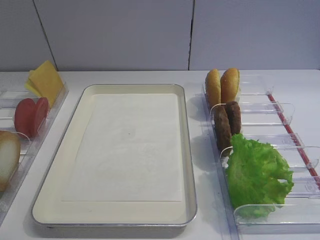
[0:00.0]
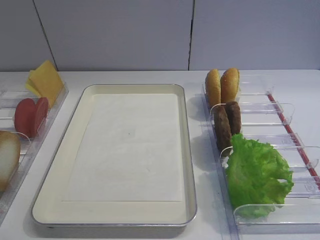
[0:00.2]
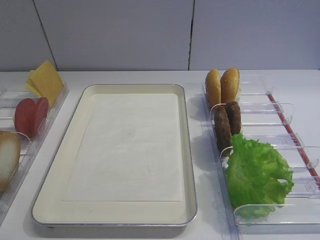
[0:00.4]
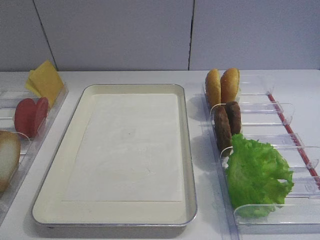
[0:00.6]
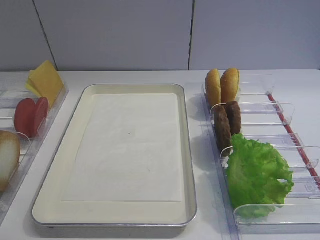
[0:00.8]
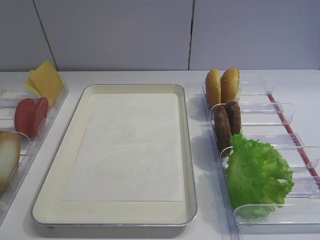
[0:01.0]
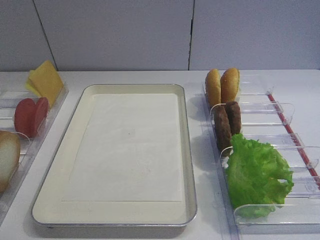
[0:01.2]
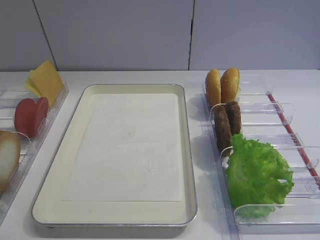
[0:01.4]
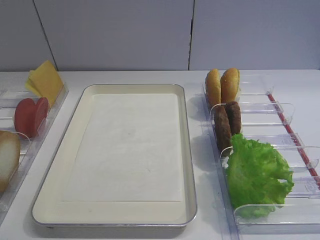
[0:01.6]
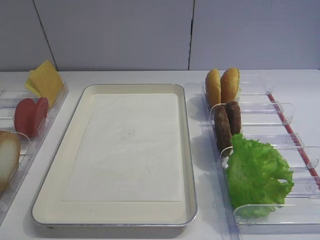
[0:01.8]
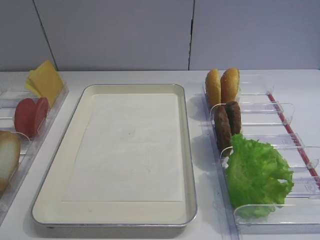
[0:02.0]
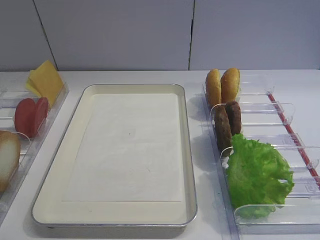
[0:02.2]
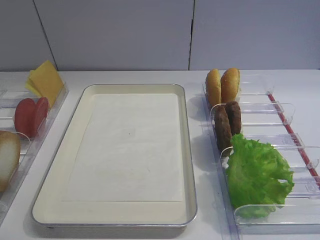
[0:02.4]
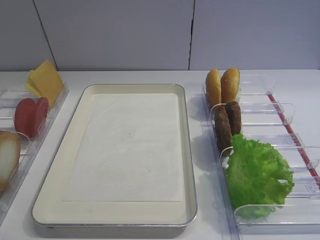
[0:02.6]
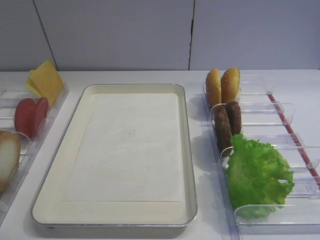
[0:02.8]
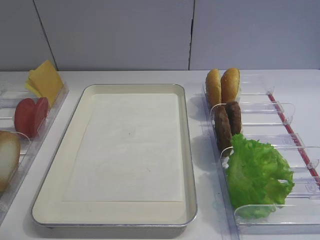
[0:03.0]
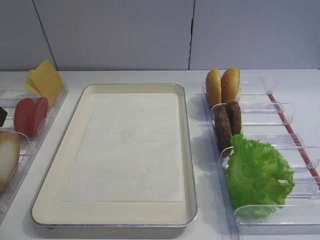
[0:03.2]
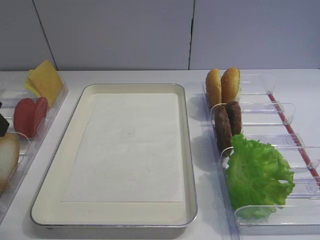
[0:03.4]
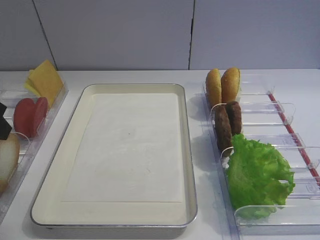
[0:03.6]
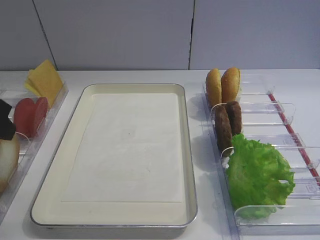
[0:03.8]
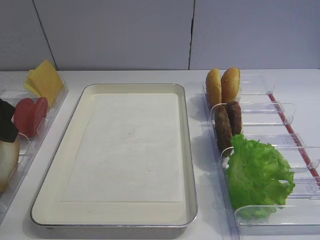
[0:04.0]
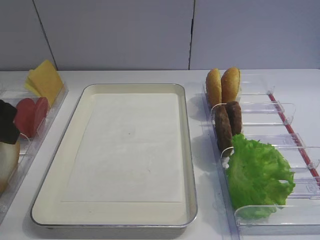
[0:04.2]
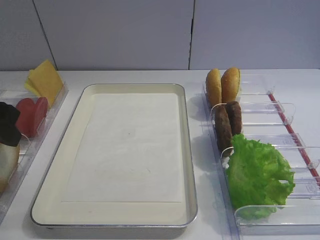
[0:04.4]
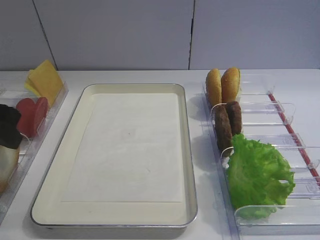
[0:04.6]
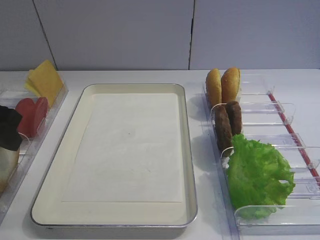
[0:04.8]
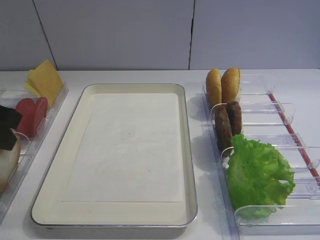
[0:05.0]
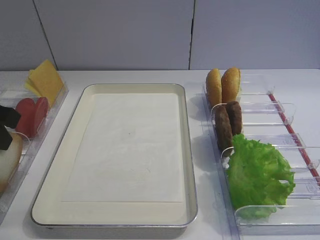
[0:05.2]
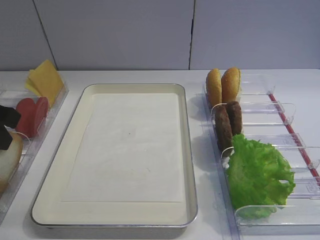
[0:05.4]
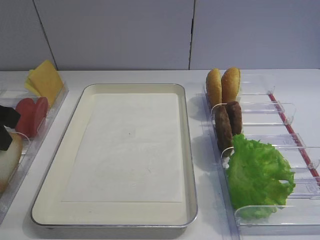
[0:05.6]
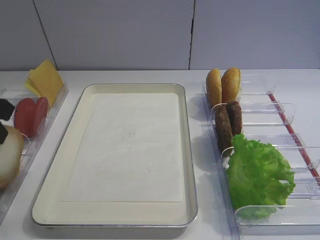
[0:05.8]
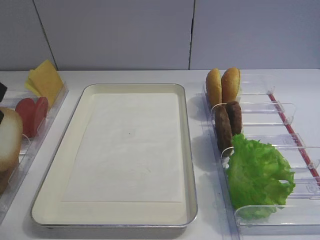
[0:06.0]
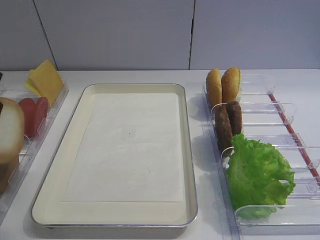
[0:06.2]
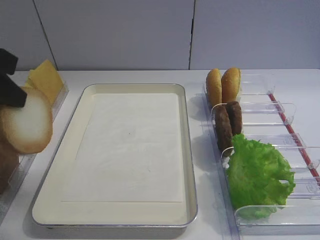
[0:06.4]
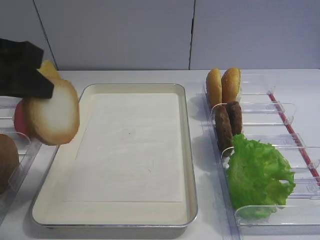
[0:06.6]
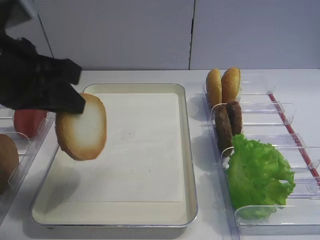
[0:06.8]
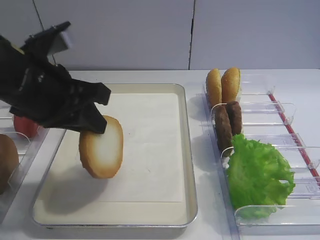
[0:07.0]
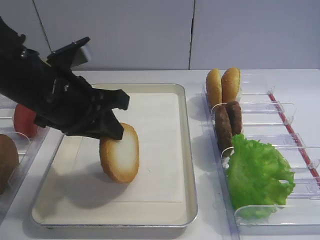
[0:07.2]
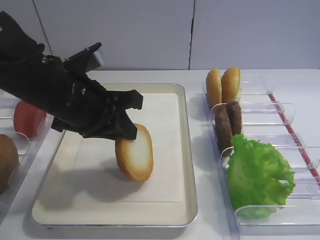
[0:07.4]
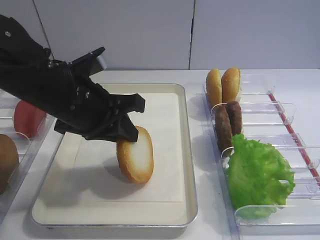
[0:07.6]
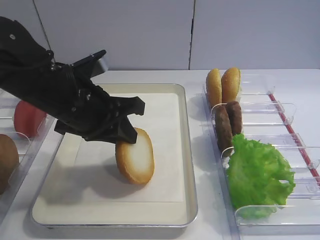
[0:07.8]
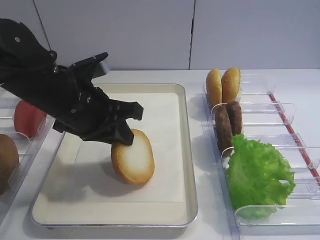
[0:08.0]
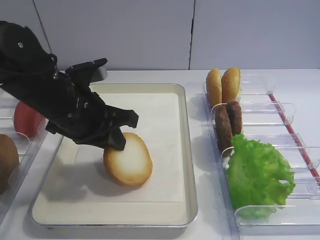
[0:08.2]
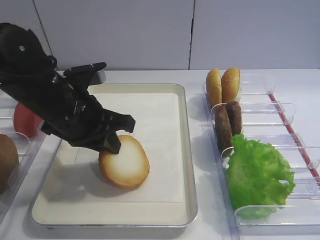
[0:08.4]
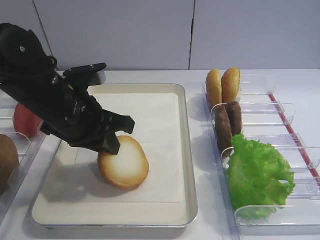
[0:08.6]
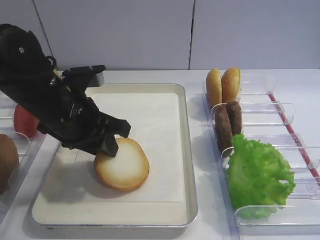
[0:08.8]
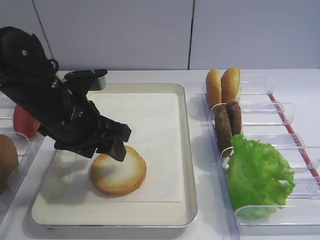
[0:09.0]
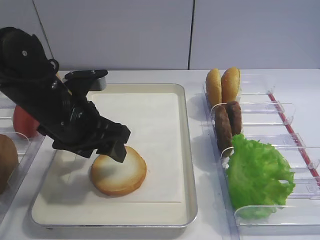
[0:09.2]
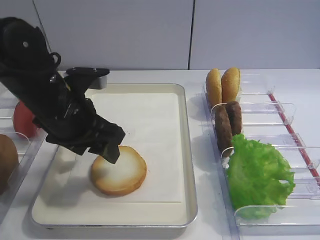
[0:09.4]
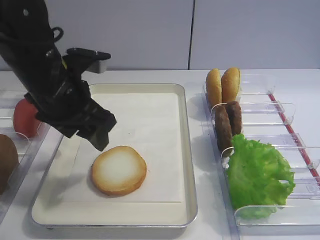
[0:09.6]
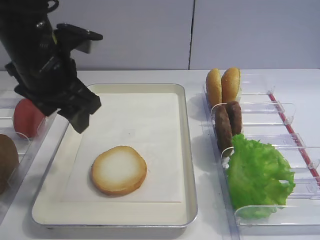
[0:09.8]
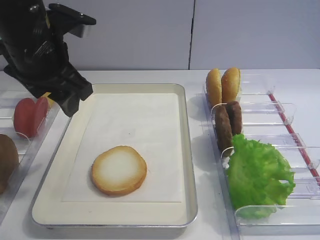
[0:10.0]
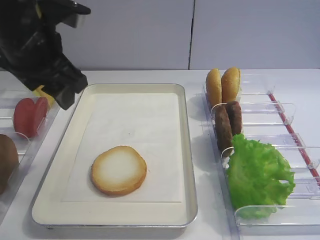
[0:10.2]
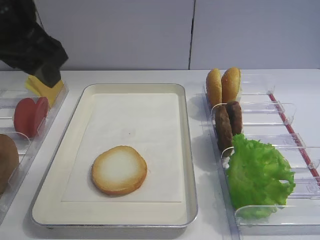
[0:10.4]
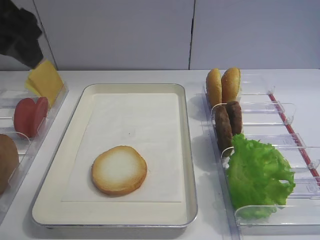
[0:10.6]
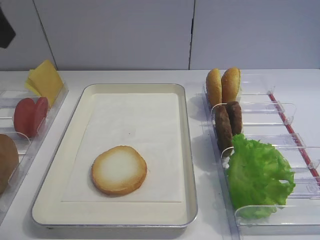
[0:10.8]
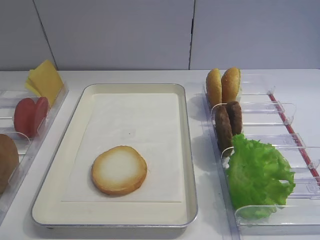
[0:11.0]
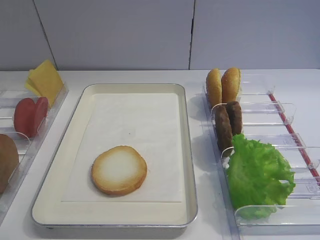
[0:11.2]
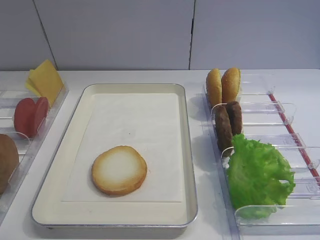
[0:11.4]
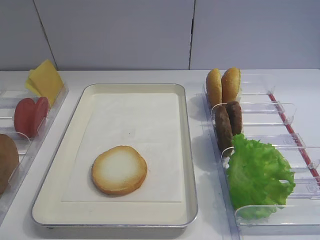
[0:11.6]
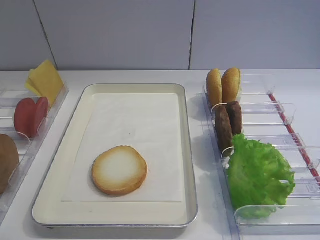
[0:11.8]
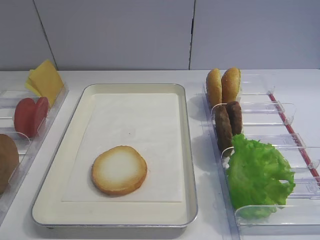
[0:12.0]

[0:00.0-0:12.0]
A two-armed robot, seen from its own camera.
Step, 0:00.0 to 0:06.0: Pick up the bread slice with the left gripper.
Step, 0:06.2 to 0:09.6: Place the bread slice on the tray with the left gripper.
0:03.0 to 0:04.4: The left gripper is displaced forward and downward by approximately 10 cm.
0:04.4 to 0:06.0: The left gripper closes up.
0:06.0 to 0:07.6: The left gripper moves to the right and downward, roughly 15 cm.
0:07.6 to 0:09.0: The left gripper opens its fingers.
0:09.0 to 0:10.4: The left gripper shifts about 15 cm upward.
0:10.4 to 0:12.0: The left gripper shifts approximately 30 cm backward and to the left.

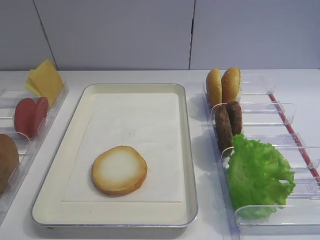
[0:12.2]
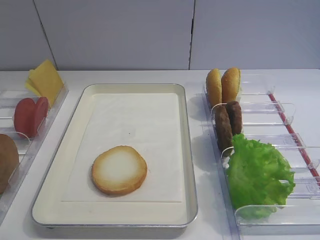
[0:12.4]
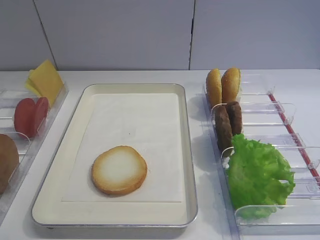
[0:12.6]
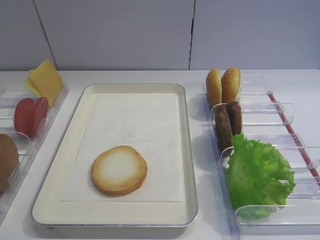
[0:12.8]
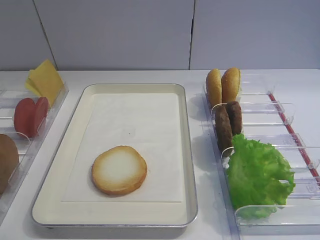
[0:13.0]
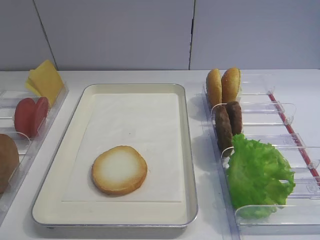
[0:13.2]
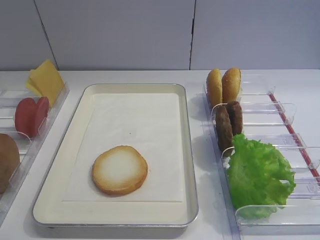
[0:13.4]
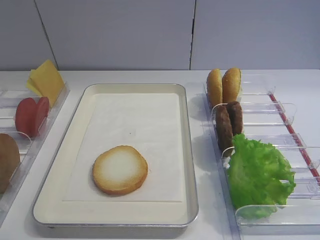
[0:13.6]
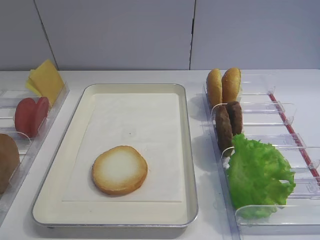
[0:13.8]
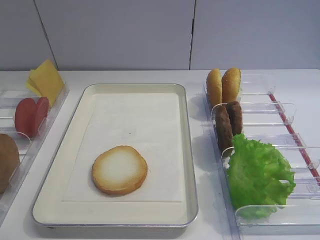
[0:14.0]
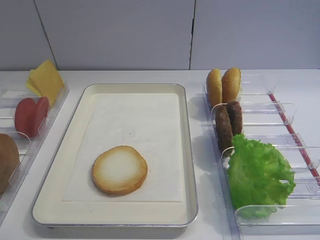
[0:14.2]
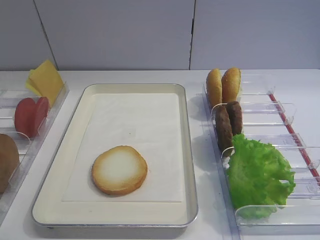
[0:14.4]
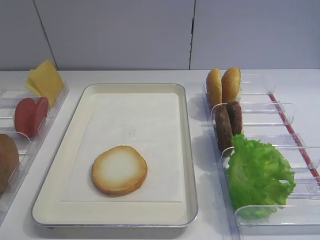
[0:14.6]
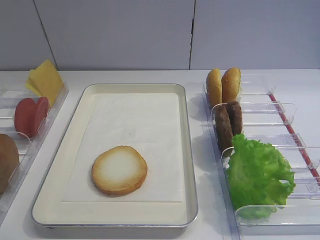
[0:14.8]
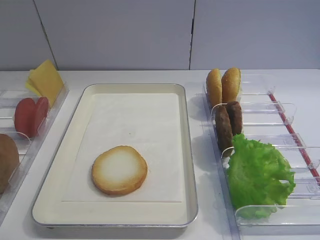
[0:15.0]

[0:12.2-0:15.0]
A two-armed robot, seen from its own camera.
0:12.2 to 0:13.6: Both grippers stay put.

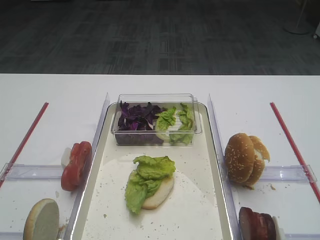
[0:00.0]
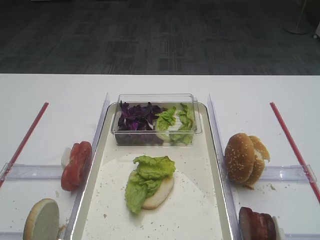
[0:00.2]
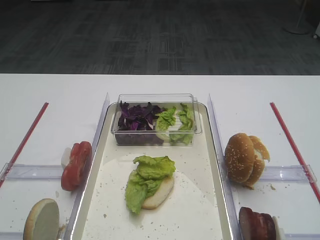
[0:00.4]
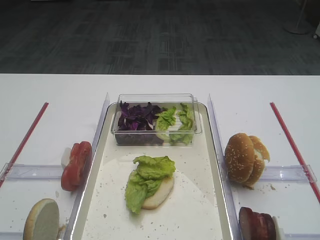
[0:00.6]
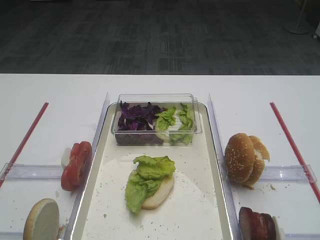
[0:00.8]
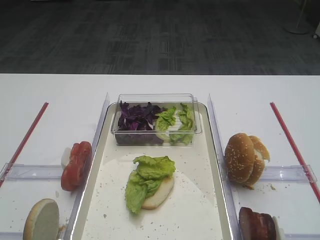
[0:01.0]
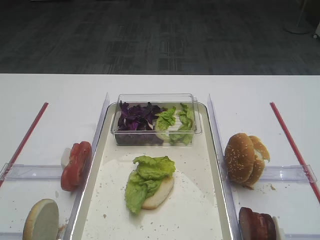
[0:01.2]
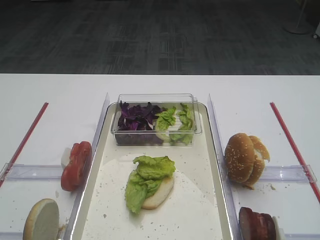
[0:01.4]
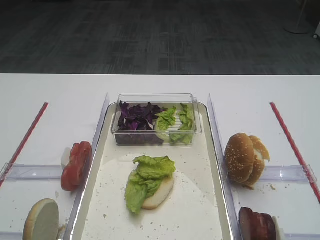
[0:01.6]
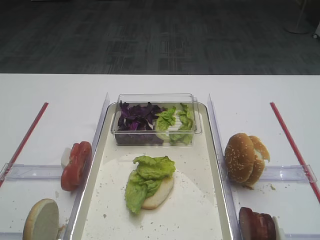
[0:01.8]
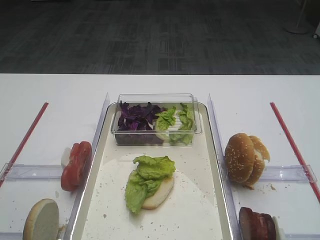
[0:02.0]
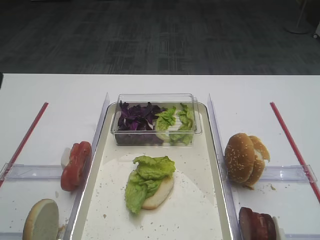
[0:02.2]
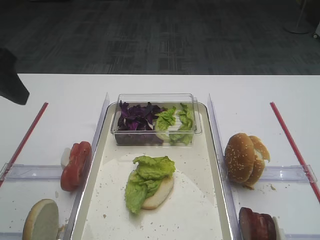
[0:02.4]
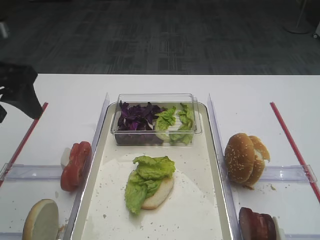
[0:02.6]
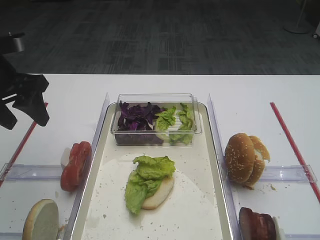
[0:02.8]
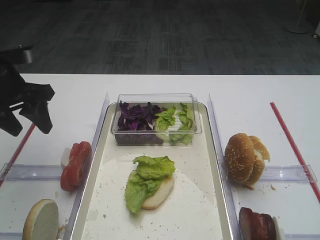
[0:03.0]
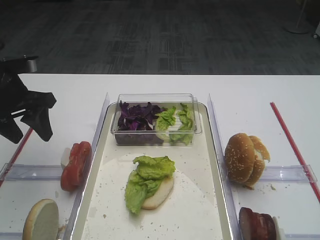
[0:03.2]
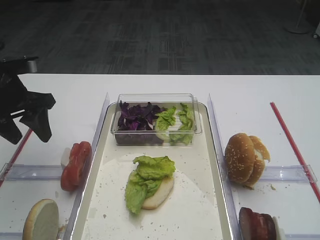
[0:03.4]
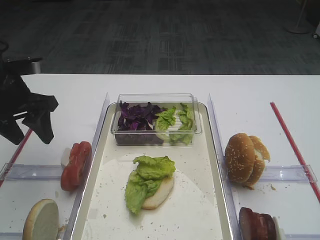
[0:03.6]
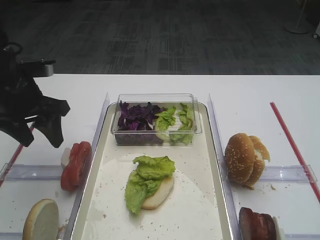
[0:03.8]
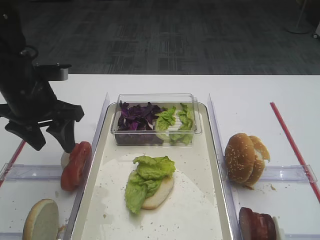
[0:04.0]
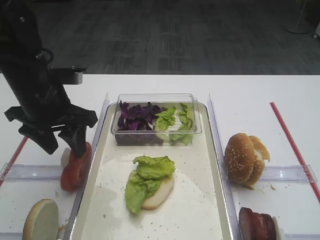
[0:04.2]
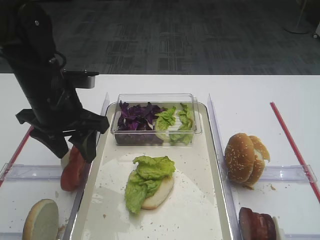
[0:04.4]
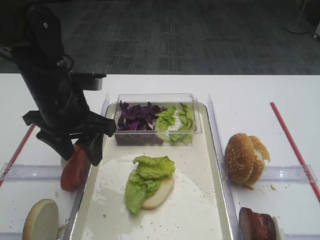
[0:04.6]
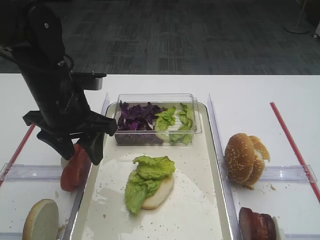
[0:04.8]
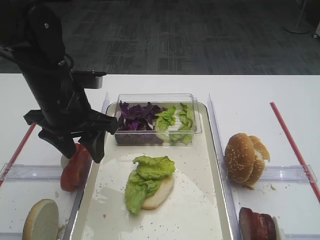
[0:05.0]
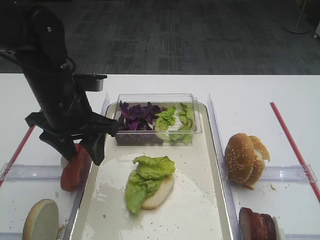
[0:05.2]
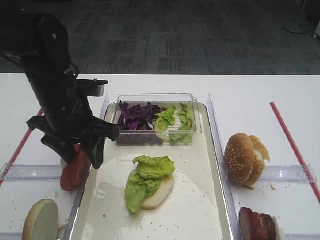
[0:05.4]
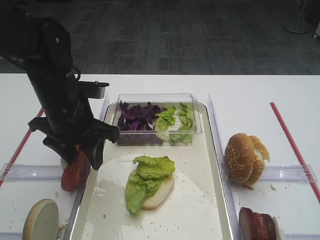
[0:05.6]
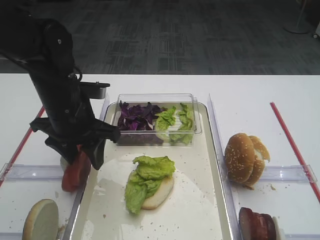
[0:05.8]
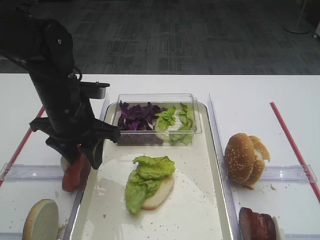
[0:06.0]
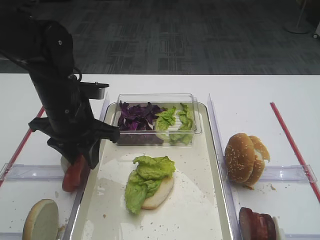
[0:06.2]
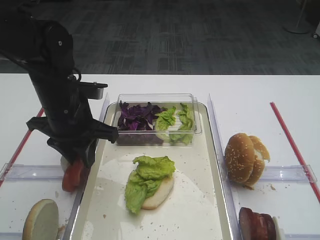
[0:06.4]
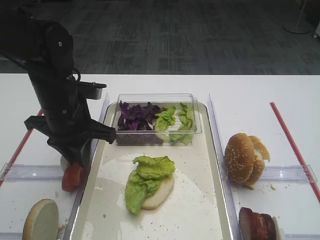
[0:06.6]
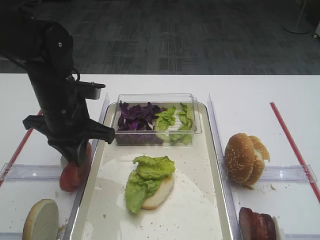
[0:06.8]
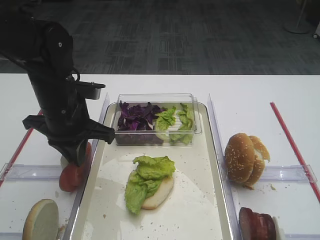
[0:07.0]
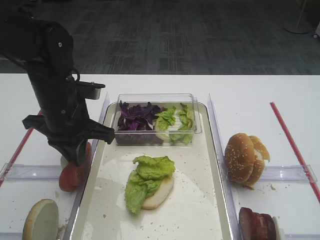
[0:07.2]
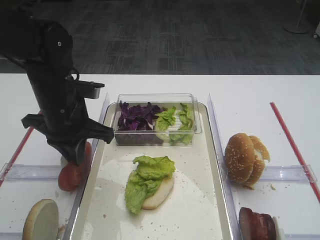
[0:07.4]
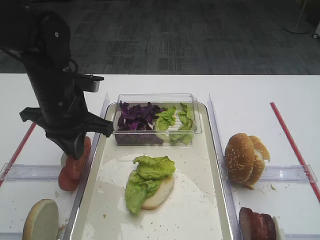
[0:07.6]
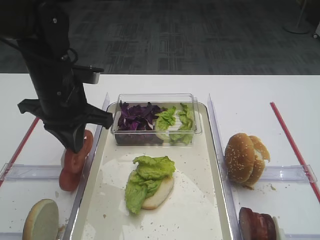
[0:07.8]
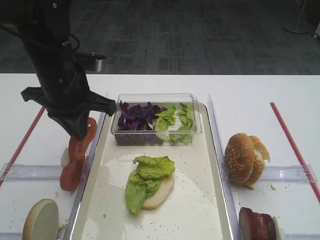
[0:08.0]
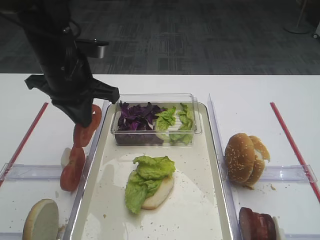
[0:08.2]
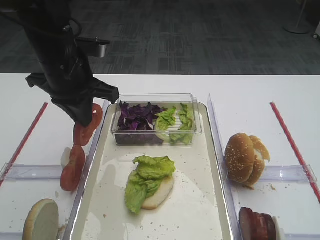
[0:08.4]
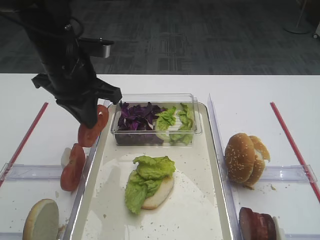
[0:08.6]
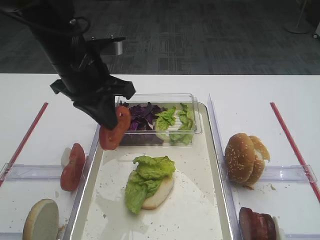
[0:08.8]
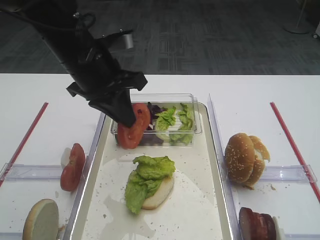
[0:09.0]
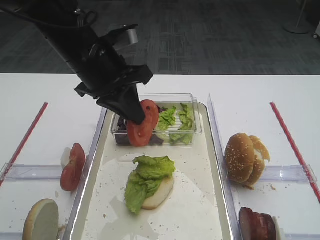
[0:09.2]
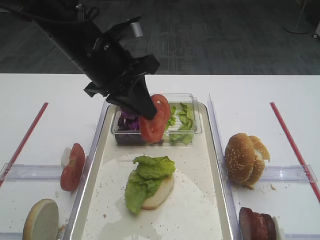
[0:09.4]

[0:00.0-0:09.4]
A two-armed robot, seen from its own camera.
Step, 0:00.0 to 0:08.0: Pick up the tomato slice with the left gripper.
0:01.6 to 0:03.2: The left gripper heads forward, covering approximately 30 cm.
0:03.2 to 0:04.8: The left gripper goes roughly 10 cm to the right.
0:04.8 to 0:06.2: There are only small adjustments of the grippers.
0:06.2 to 0:07.8: The left gripper closes.
0:07.8 to 0:09.4: The left gripper travels to the right and upward by roughly 10 cm.
